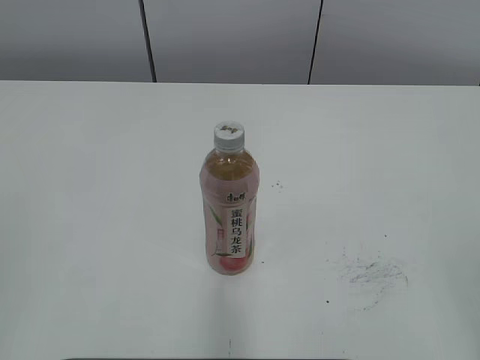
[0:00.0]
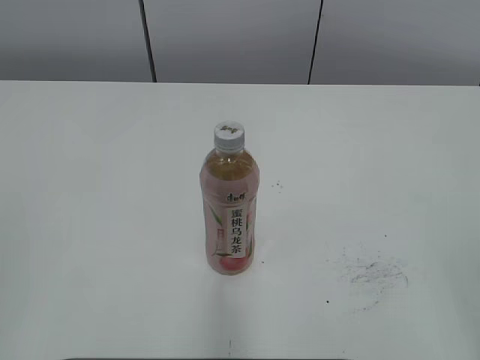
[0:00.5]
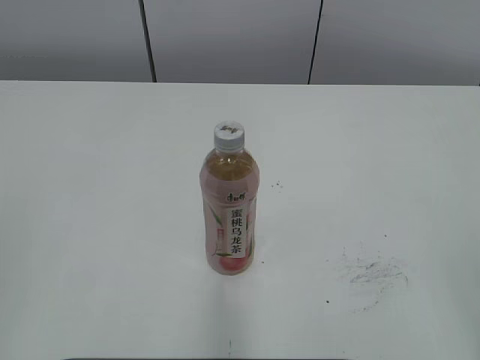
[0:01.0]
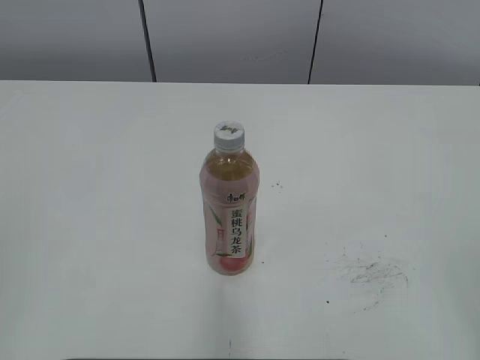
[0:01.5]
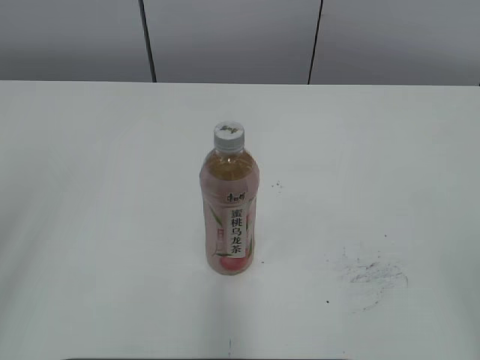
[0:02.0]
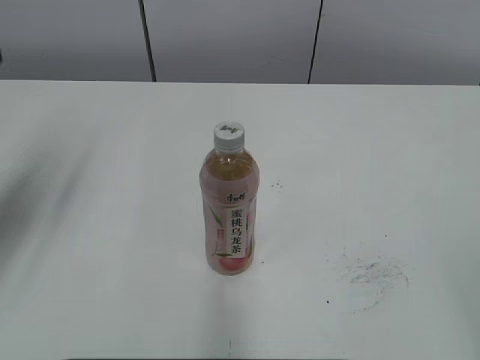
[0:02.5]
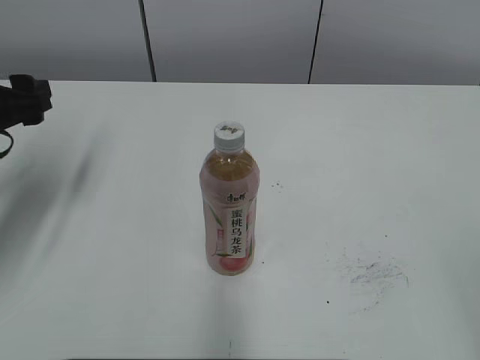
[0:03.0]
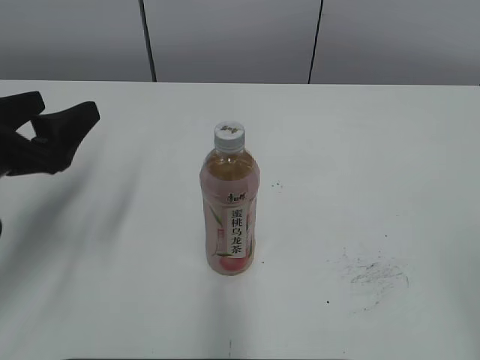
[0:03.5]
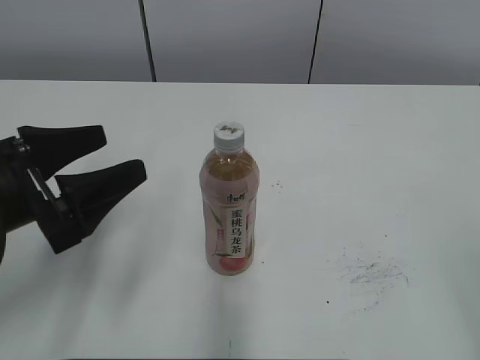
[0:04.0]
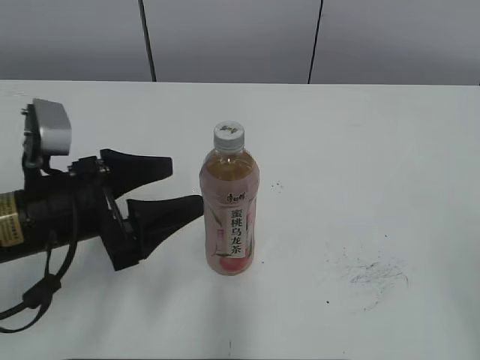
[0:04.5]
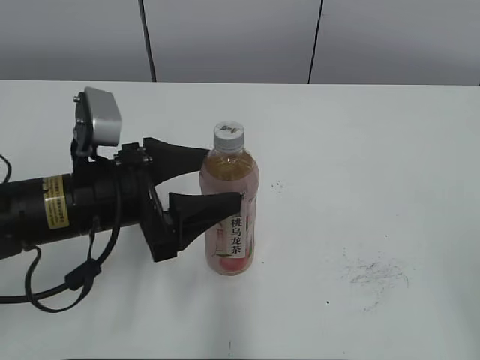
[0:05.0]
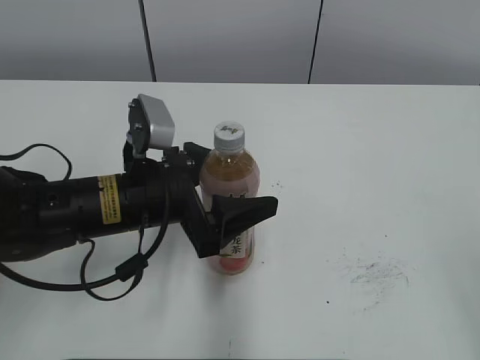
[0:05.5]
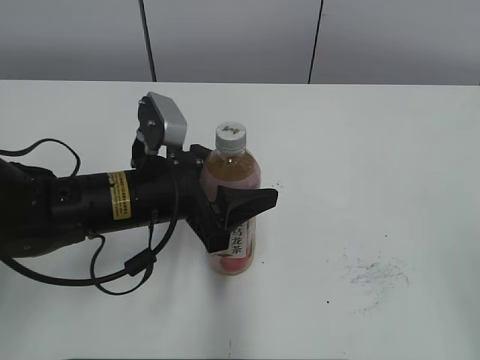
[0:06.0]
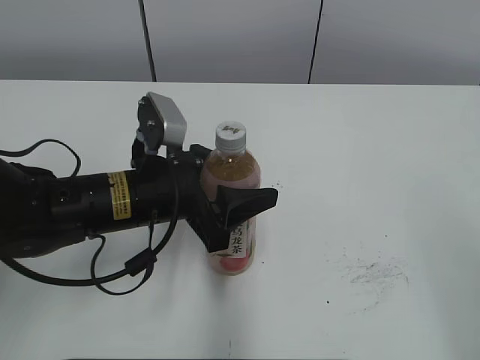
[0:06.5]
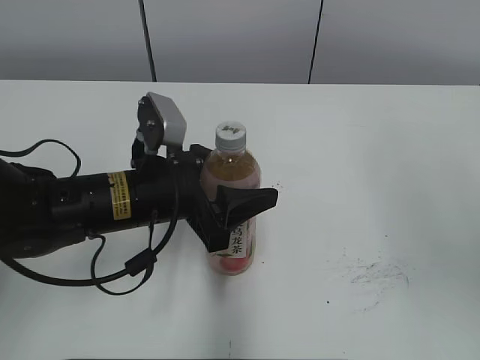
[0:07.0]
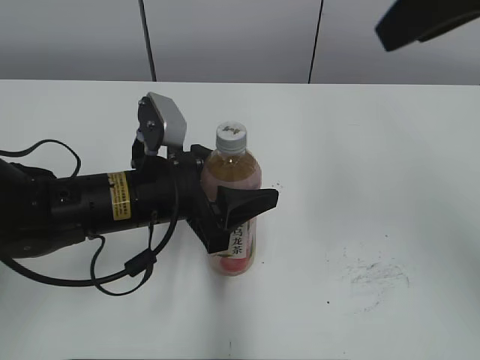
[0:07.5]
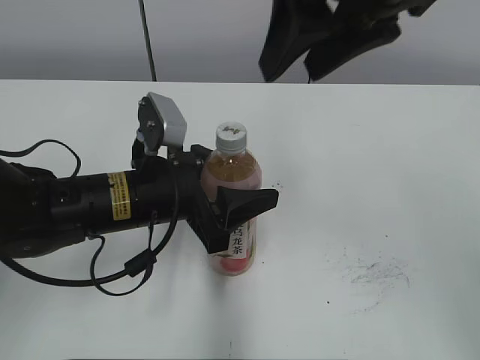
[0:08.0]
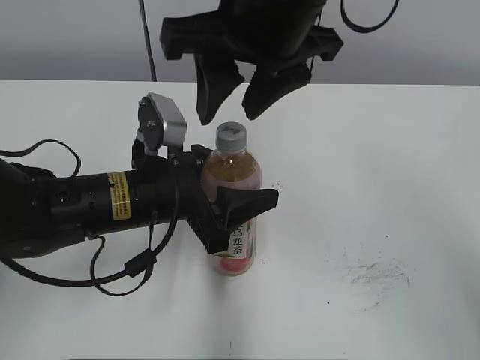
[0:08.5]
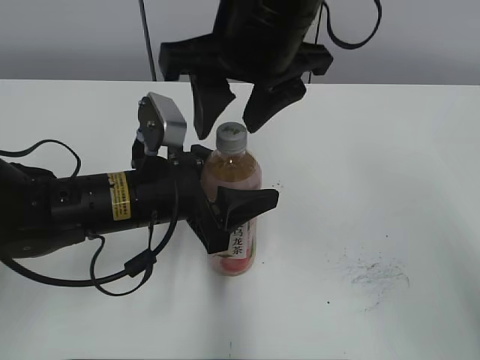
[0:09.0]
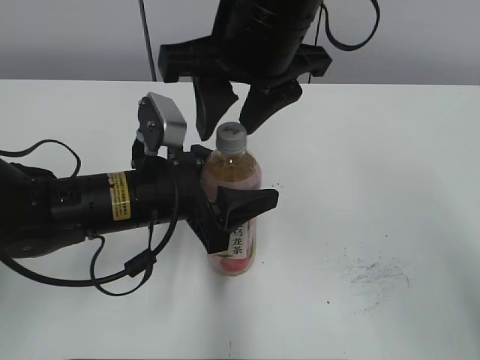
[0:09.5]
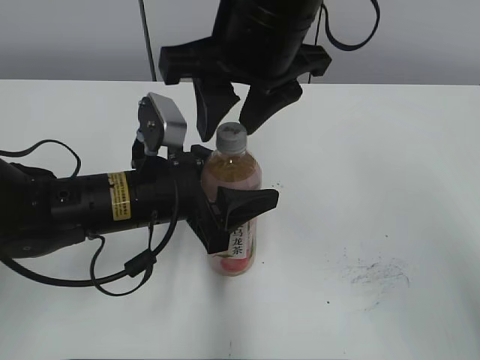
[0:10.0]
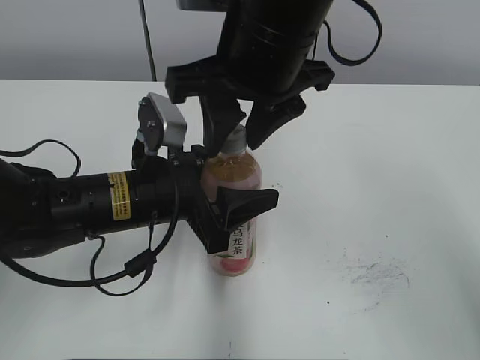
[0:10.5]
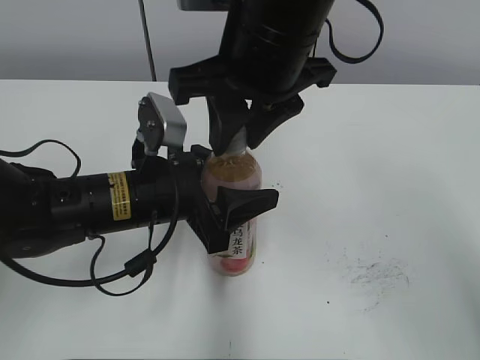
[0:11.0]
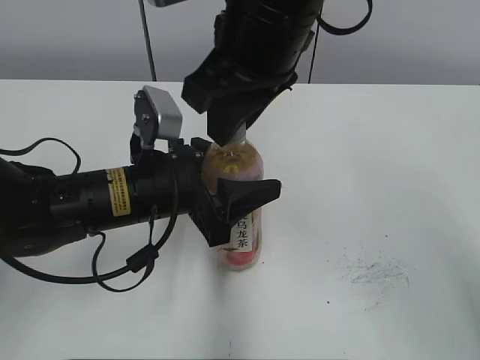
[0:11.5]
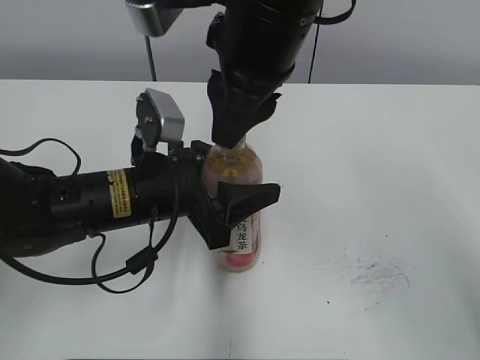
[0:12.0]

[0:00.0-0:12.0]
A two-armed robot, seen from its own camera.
Step, 0.0 to 5.5 s: Grab the Peach Oolong Tea with the left hand.
2.0 to 4.0 s: The left gripper goes some 20 cm downward, forward and to the right, and opens its fingers.
4.0 to 6.0 s: The left gripper is displaced to the right and forward by roughly 15 cm, and closes its fingers.
6.0 to 8.0 s: The right gripper goes some 35 cm forward and to the left.
8.0 to 10.0 s: The right gripper is displaced to the left and downward by some 10 cm.

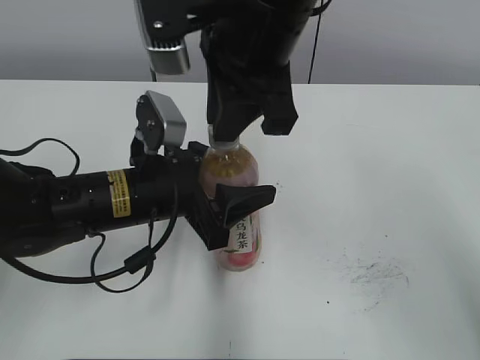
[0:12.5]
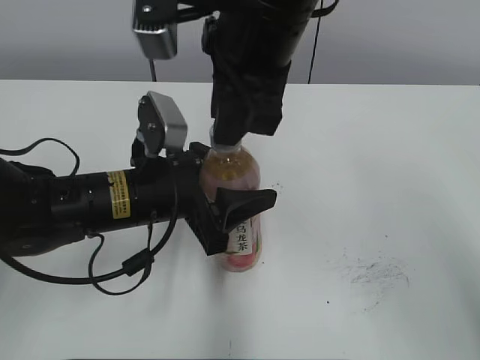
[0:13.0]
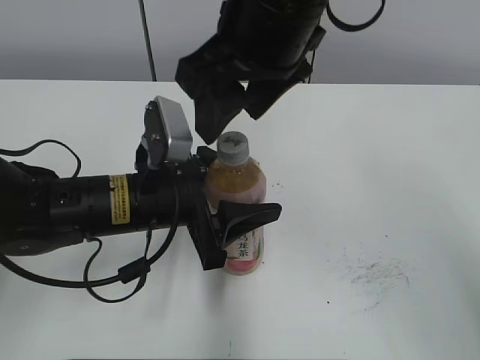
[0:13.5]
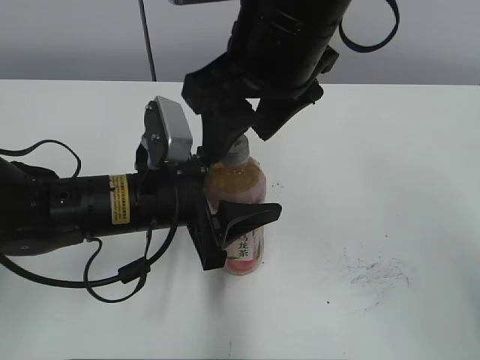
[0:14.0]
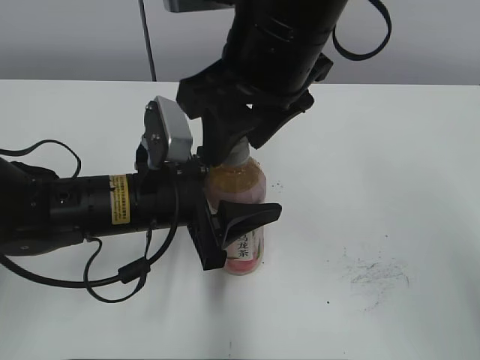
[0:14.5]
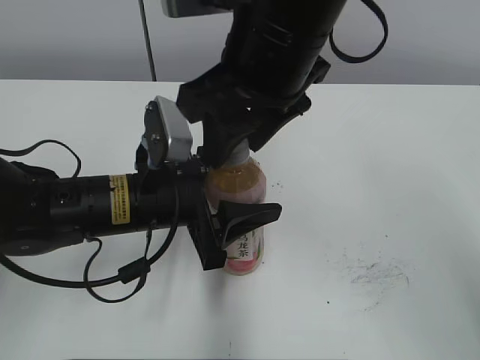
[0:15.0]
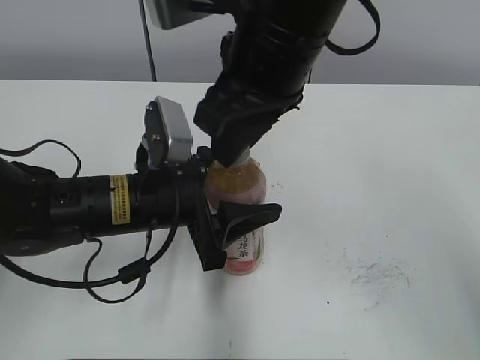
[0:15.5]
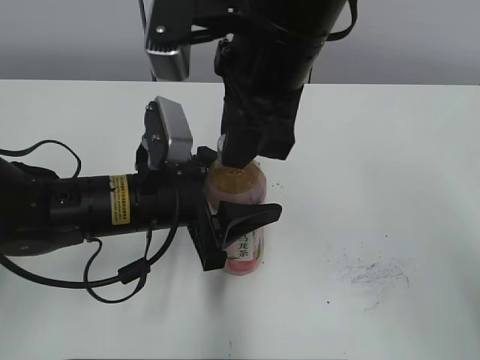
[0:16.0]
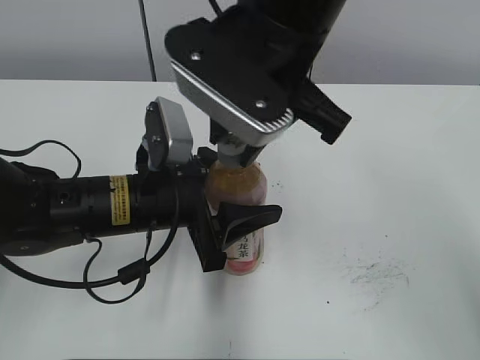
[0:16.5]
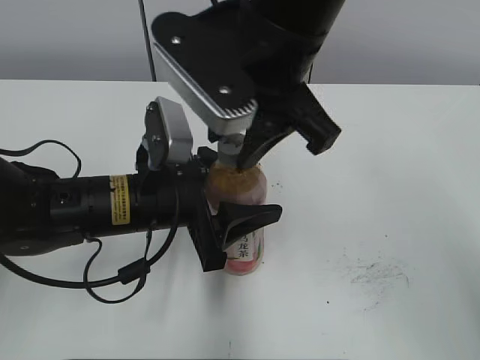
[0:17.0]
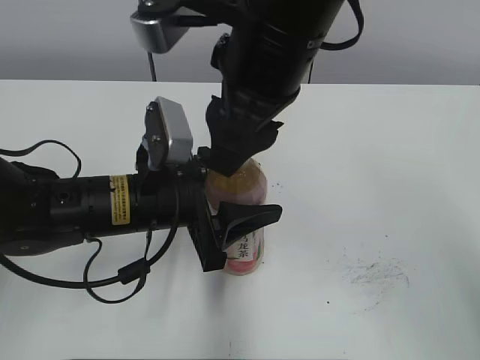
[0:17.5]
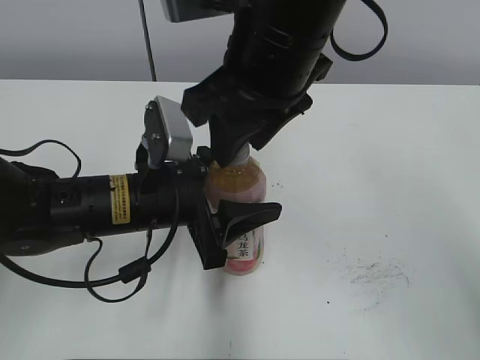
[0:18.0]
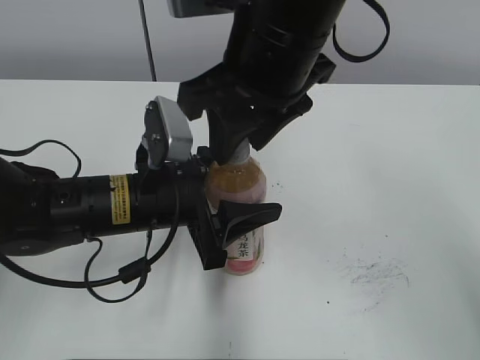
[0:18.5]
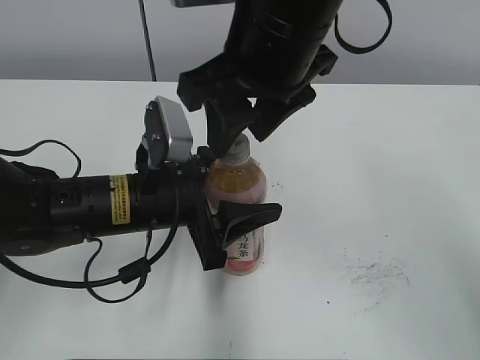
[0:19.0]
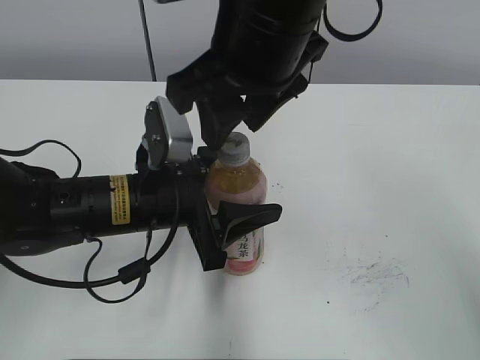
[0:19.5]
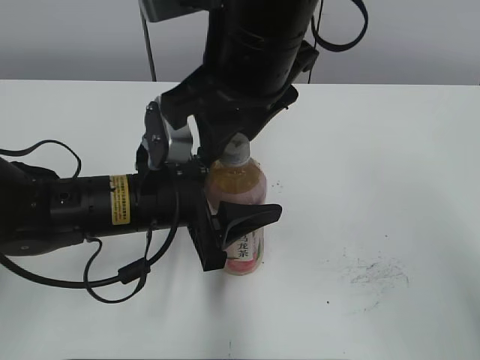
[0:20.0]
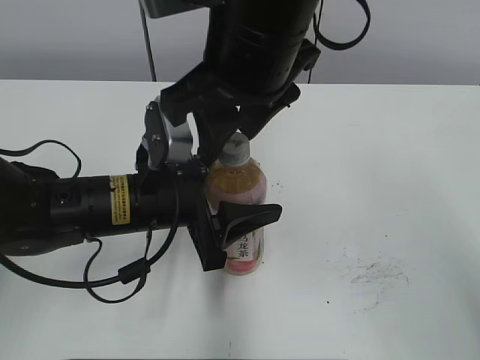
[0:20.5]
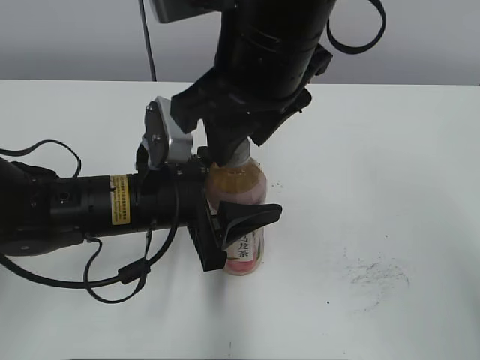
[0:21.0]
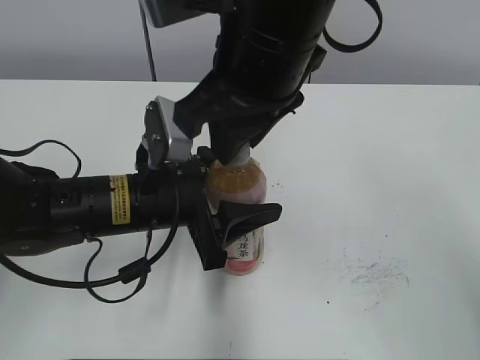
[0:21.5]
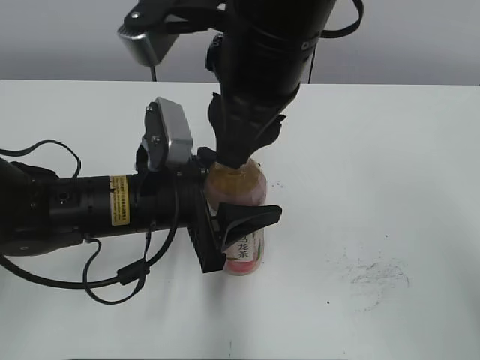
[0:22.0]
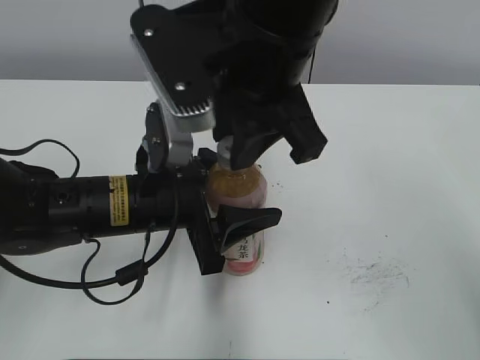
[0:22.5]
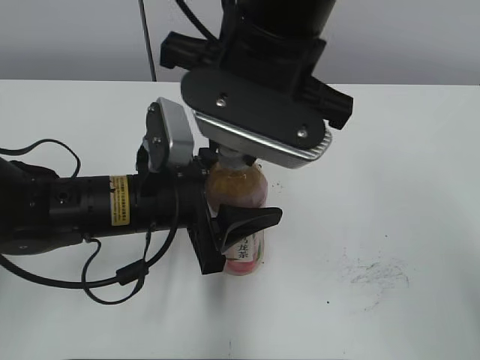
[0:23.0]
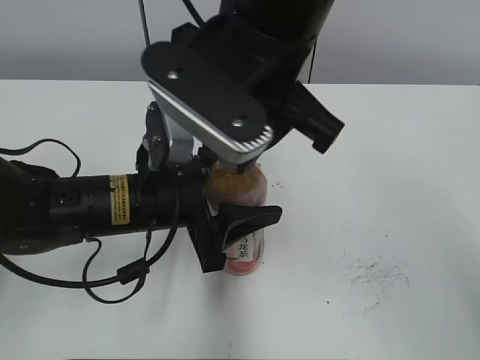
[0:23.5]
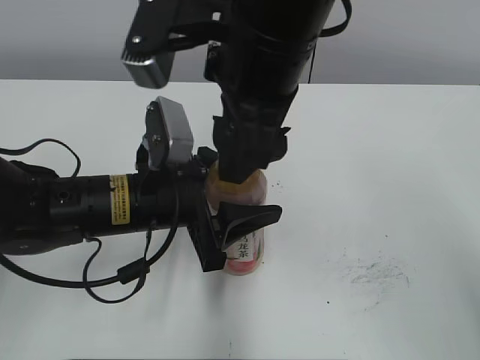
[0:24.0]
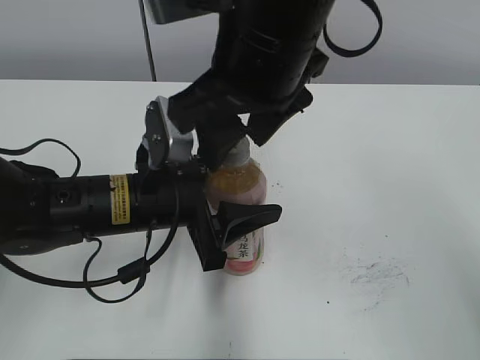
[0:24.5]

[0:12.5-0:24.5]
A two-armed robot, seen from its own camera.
12.5 to 14.5 s: The right gripper opens up.
14.5 to 16.5 s: The right gripper closes its fingers.
18.5 to 20.5 s: There are only small adjustments of the grippers.
22.5 to 24.5 s: The right gripper opens up.

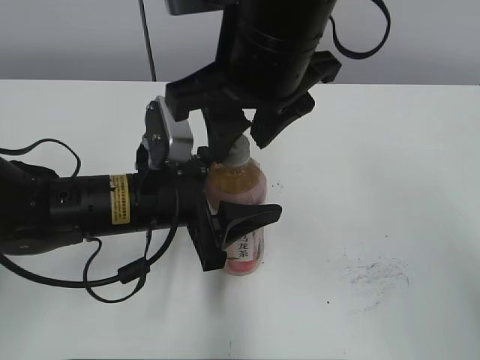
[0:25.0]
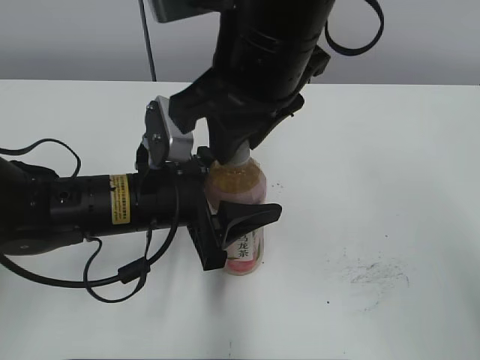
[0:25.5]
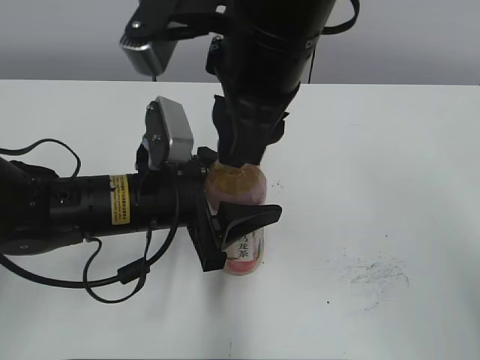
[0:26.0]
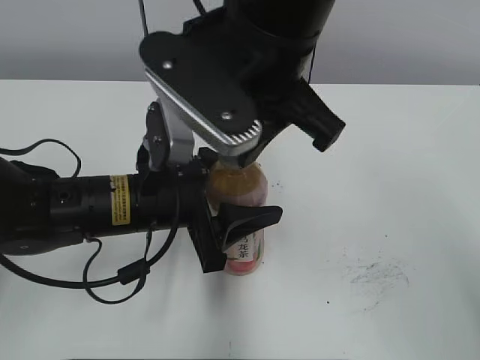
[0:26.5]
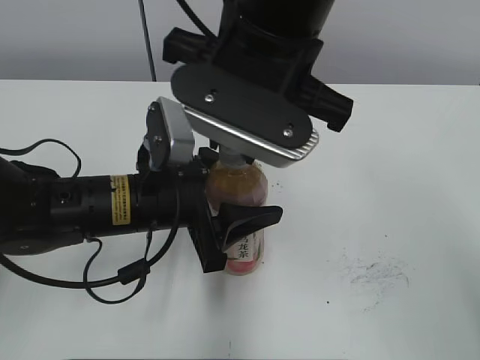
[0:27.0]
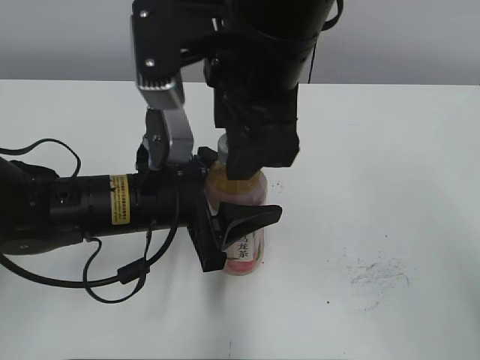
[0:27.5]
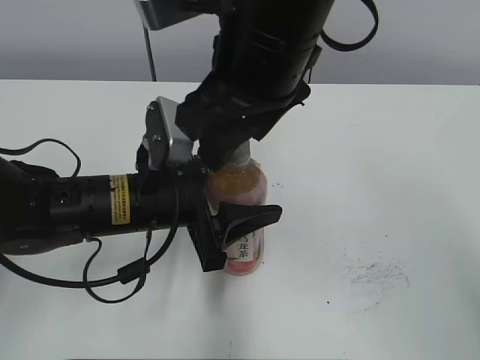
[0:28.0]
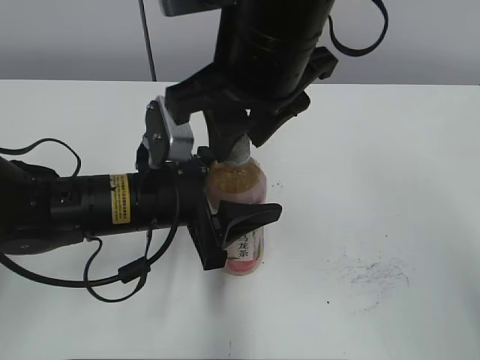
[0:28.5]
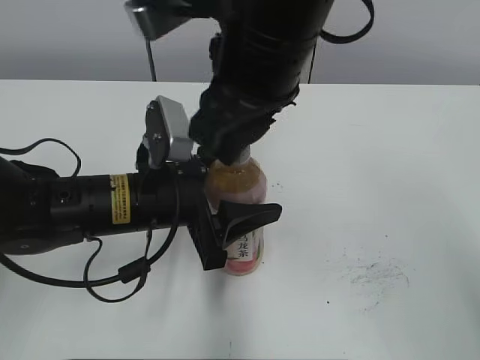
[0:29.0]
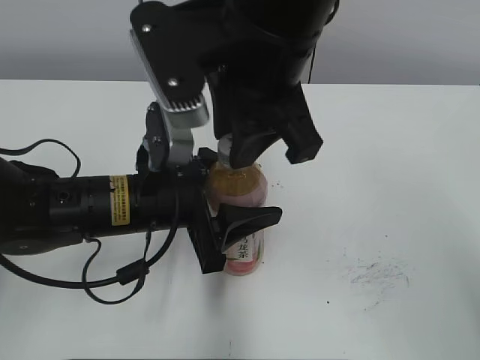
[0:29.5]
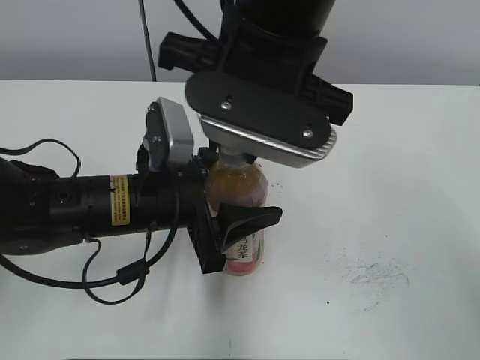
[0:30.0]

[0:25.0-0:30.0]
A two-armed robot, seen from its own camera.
27.5 to 30.0 s: The right gripper closes.
